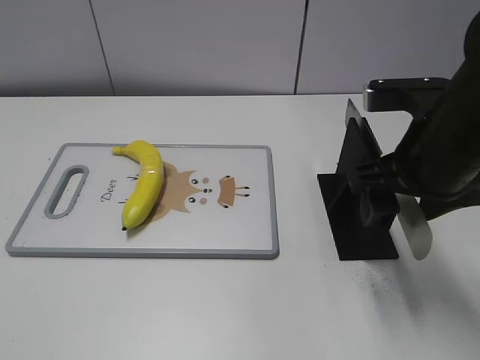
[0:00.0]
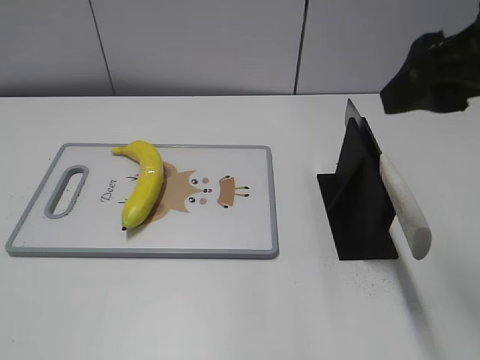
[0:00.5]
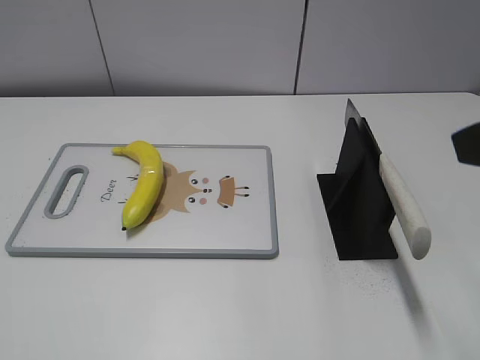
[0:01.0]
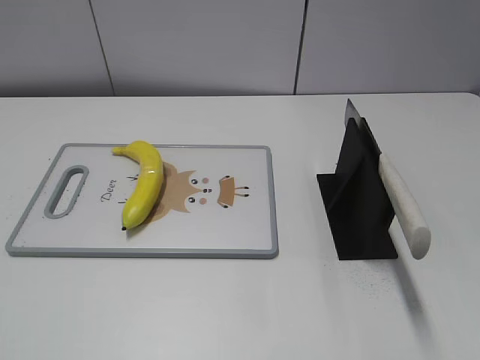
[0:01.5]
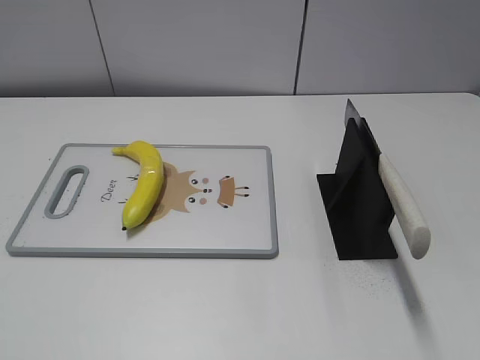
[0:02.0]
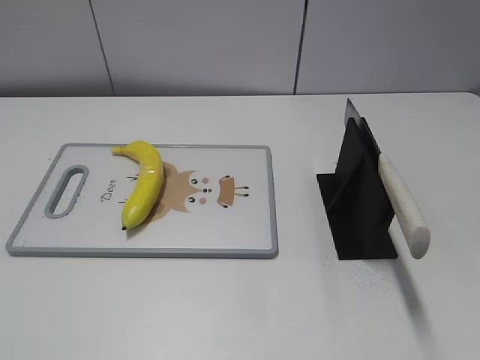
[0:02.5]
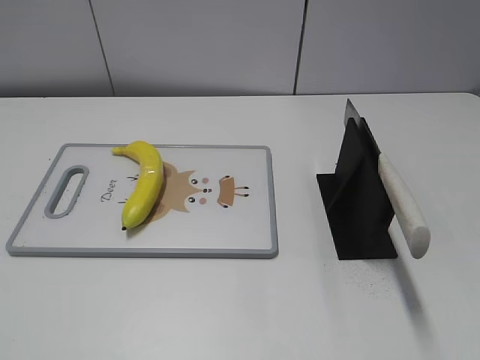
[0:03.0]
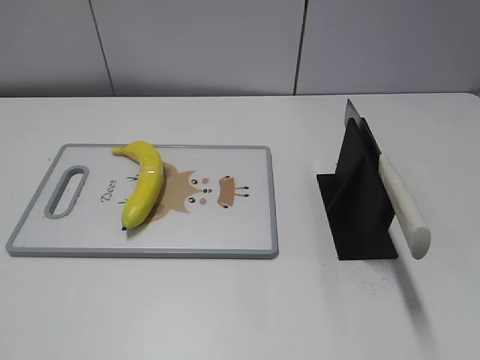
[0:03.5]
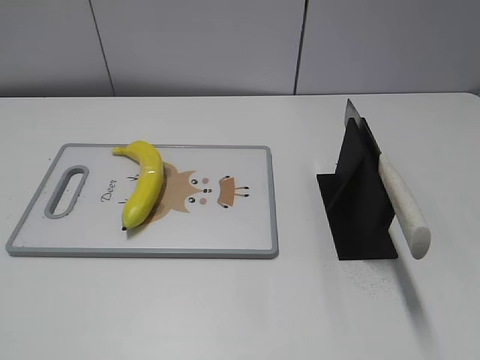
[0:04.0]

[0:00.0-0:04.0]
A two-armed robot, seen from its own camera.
Task of the whole recording: cut plastic banana.
Step, 0:00.0 to 0:04.0: Place the knife on the storage rack with your right hand.
0:00.0 to 0:02.0: The right gripper is displaced backward and to the right by about 25 cm.

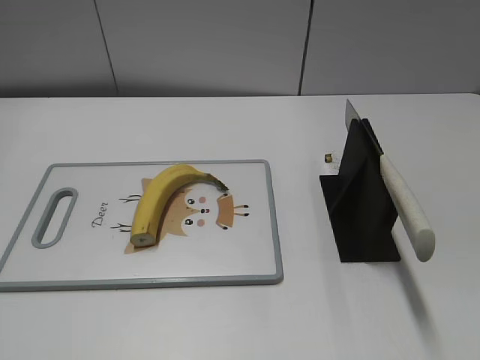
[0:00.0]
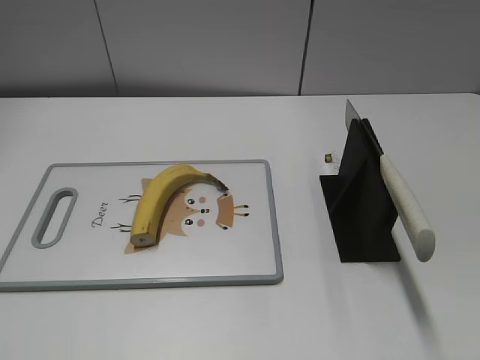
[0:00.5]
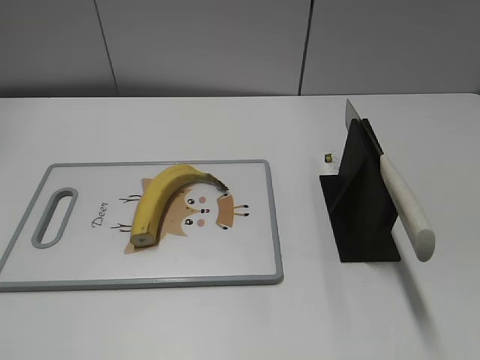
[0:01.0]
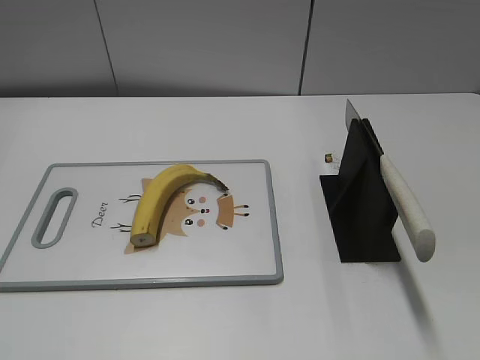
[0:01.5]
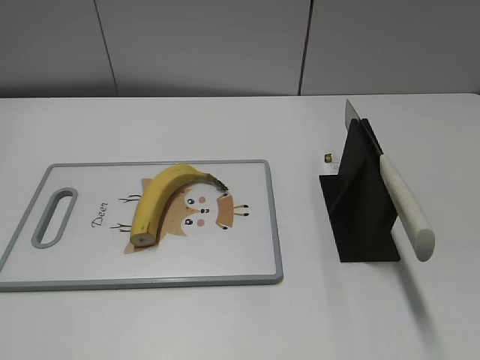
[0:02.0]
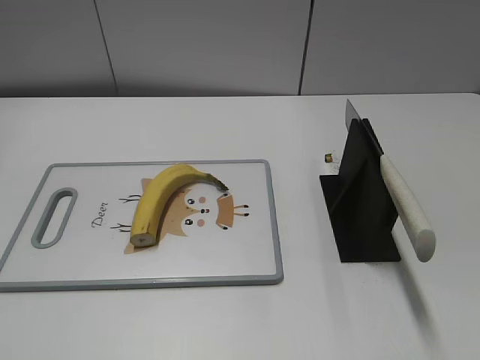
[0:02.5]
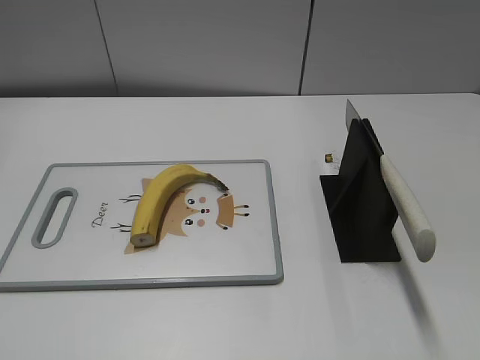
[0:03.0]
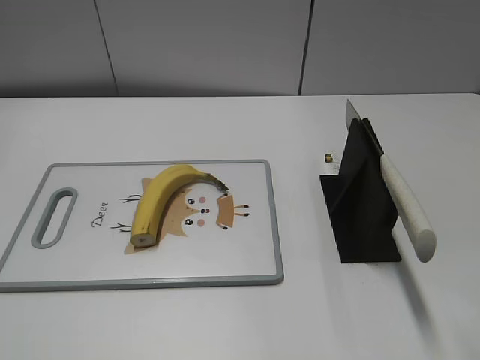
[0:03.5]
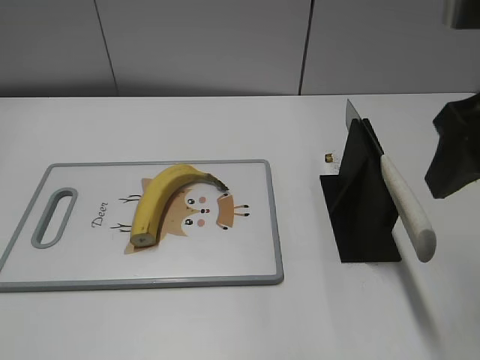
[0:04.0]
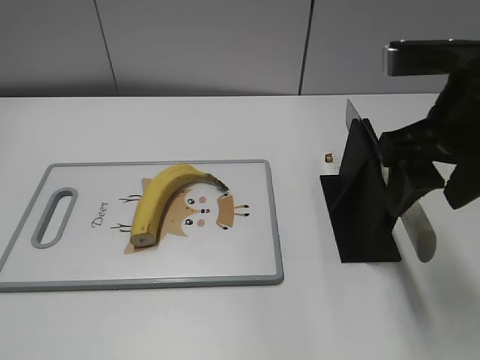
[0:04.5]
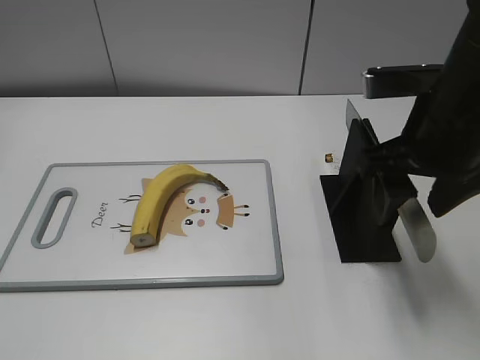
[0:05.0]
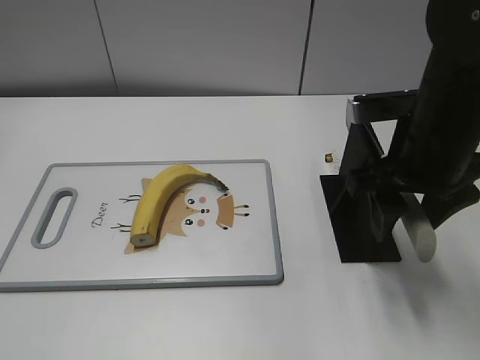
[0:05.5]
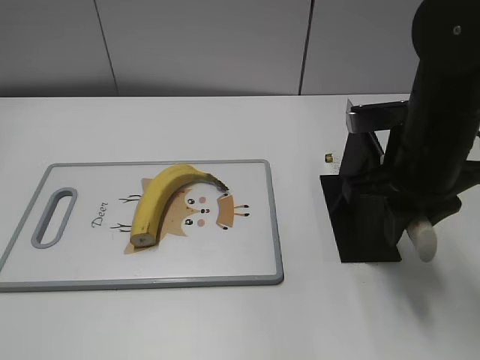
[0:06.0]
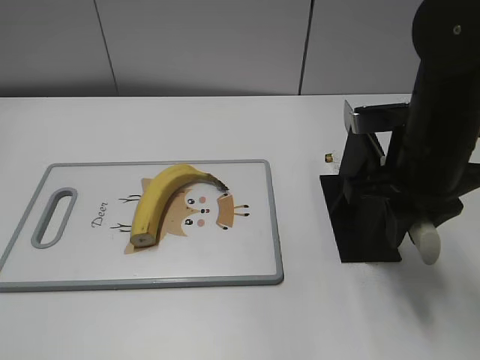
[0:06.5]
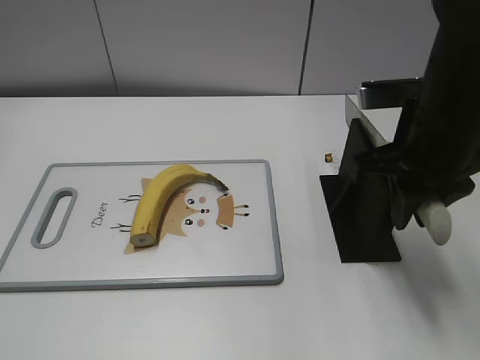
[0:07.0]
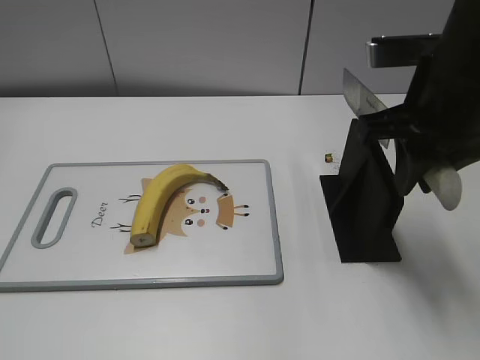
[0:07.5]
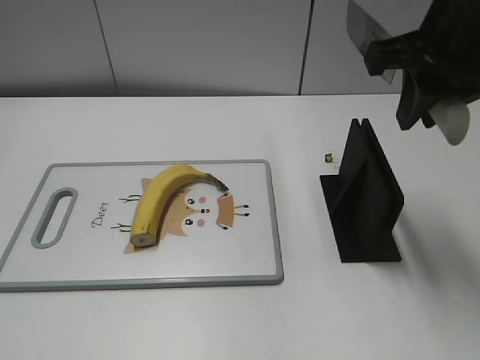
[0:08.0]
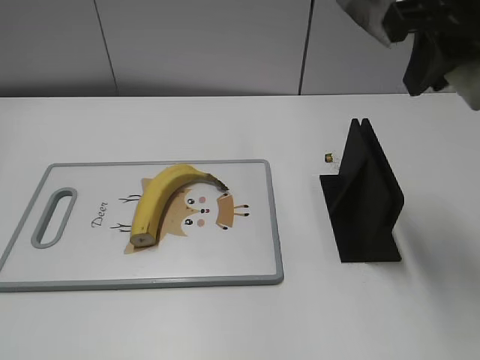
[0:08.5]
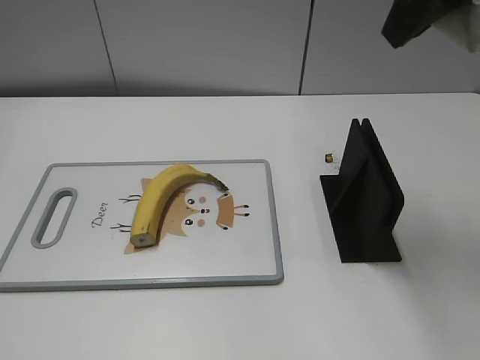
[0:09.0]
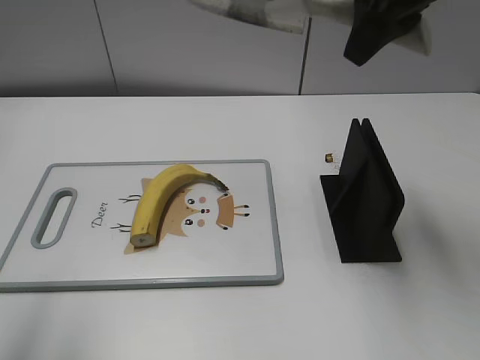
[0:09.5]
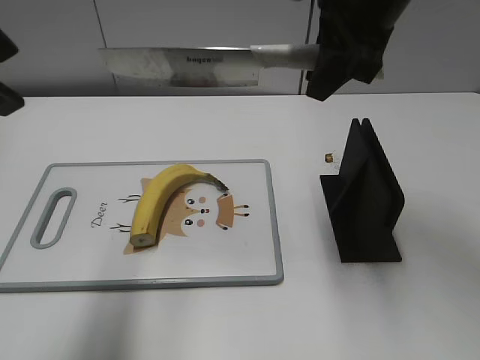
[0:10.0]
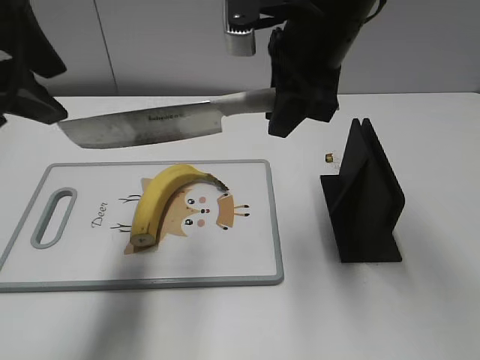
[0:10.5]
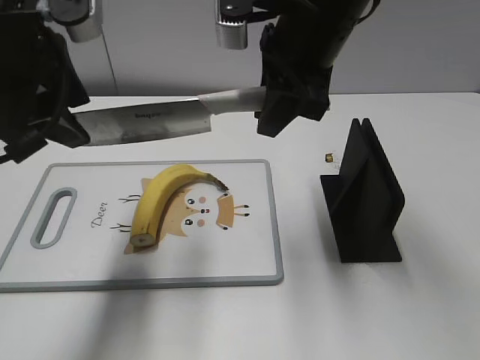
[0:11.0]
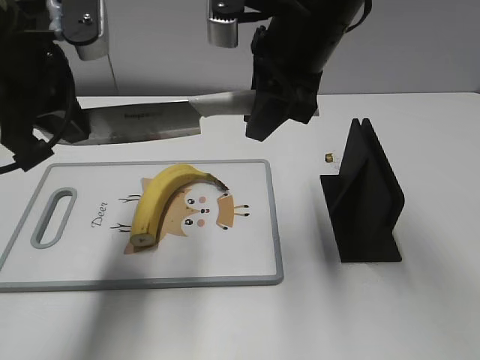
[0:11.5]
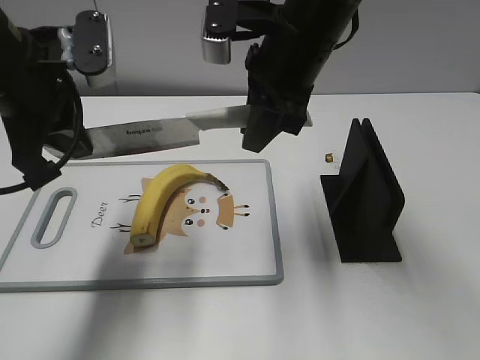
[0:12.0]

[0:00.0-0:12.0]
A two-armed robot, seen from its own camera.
Task of the whole recording: cut banana.
Step, 0:00.0 to 0:08.0: Grab the knife handle with your right hand.
0:02.0 to 0:04.0: The right gripper shifts some 25 cm forward and to the left.
0:04.0 to 0:06.0: The right gripper travels downward and forward by approximately 15 cm, and closes its fingers.
0:06.0 to 0:08.0: The right gripper moves upward, approximately 10 cm.
0:08.0 to 0:10.0: The left gripper shifts roughly 25 cm forward, upward and to the right. The right gripper travels forward and to the left by some 10 cm.
0:10.0 to 0:12.0: The left gripper goes approximately 15 cm downward and forward, and closes its fingers, while the right gripper heads to the left and downward, covering some 10 cm.

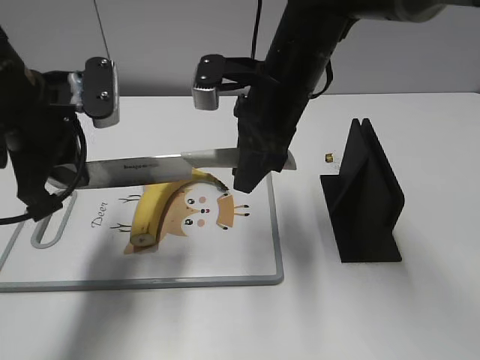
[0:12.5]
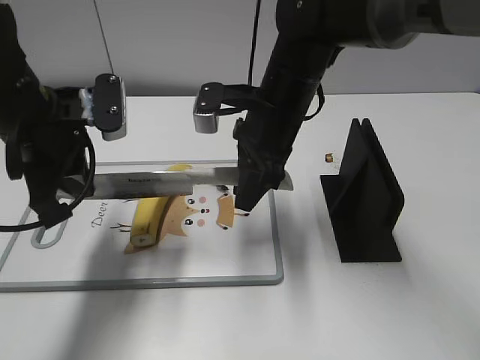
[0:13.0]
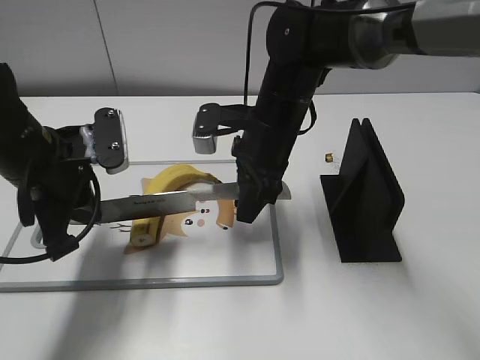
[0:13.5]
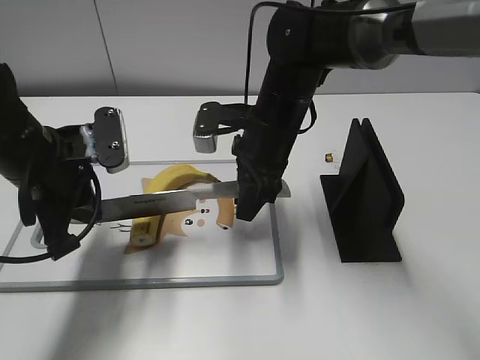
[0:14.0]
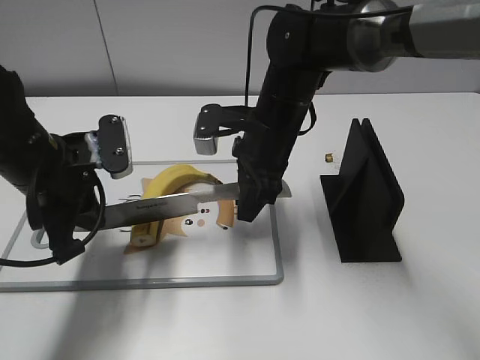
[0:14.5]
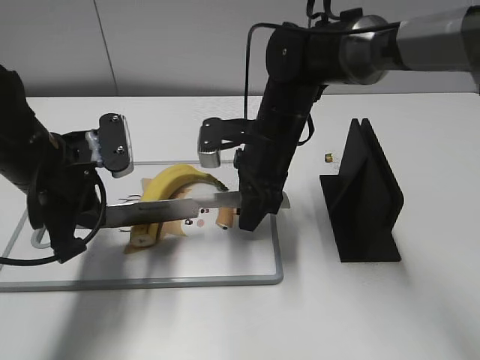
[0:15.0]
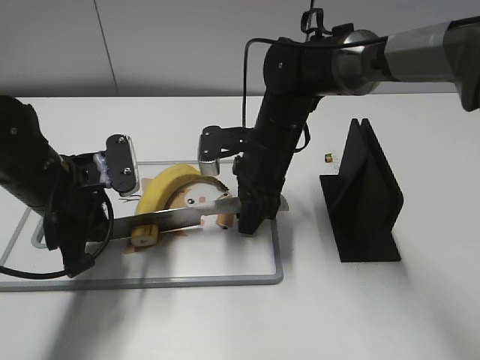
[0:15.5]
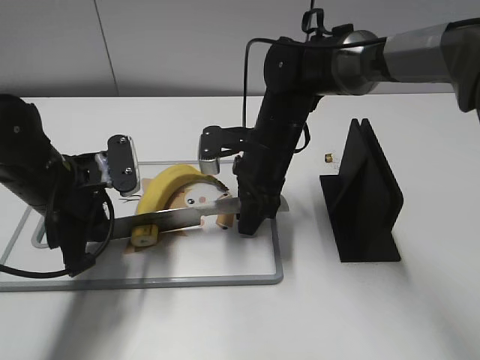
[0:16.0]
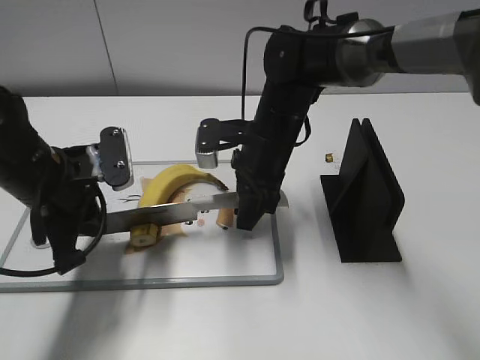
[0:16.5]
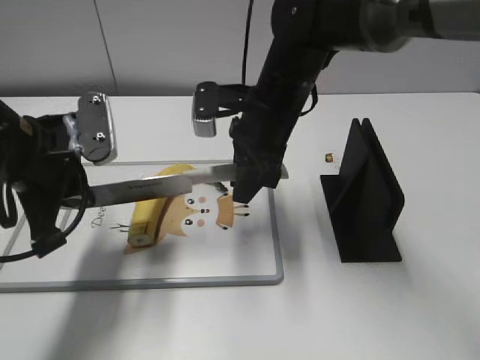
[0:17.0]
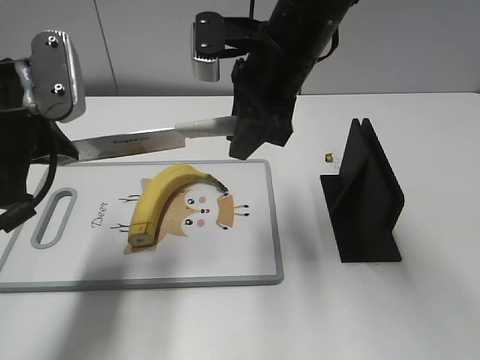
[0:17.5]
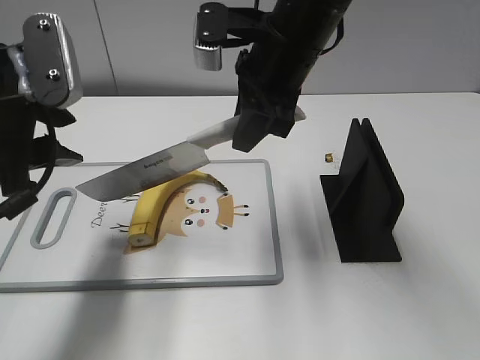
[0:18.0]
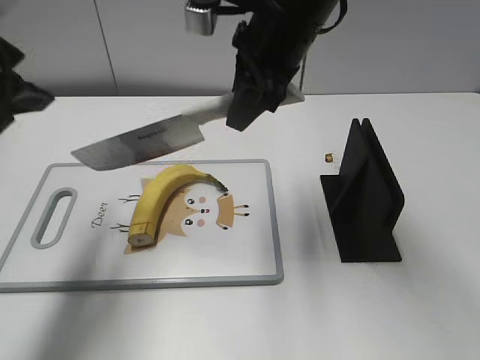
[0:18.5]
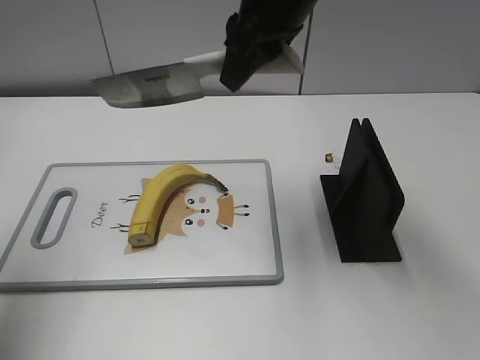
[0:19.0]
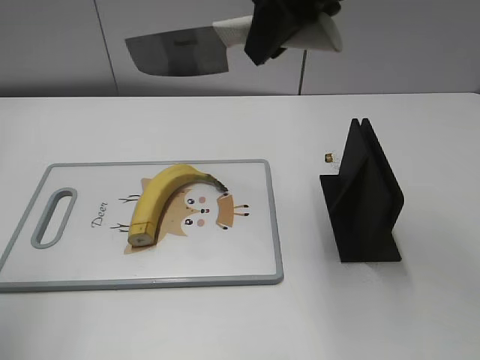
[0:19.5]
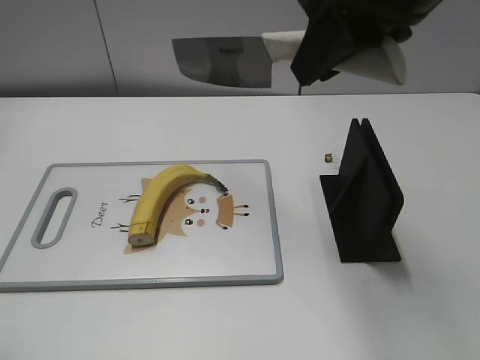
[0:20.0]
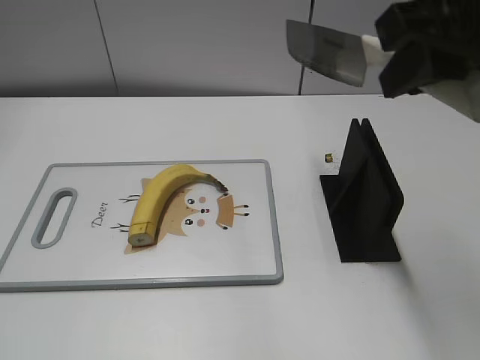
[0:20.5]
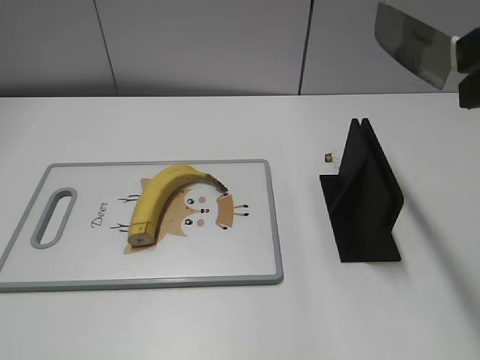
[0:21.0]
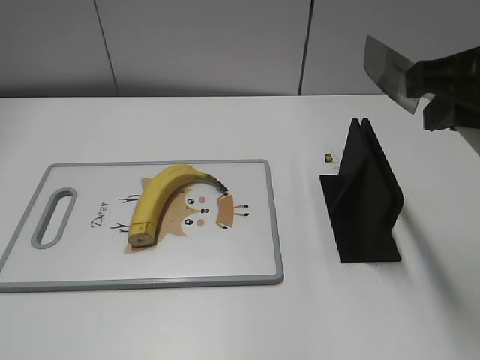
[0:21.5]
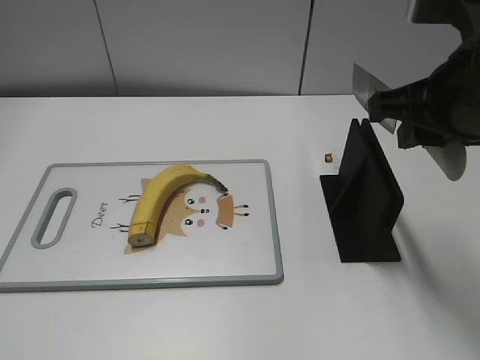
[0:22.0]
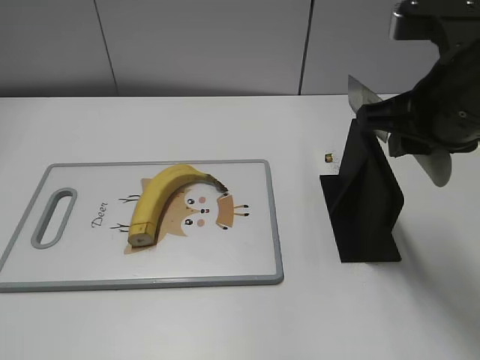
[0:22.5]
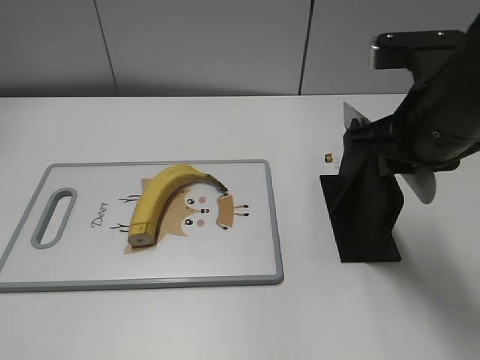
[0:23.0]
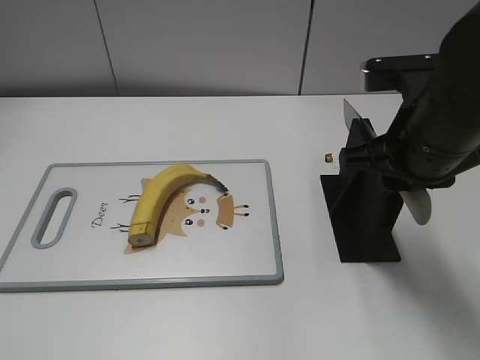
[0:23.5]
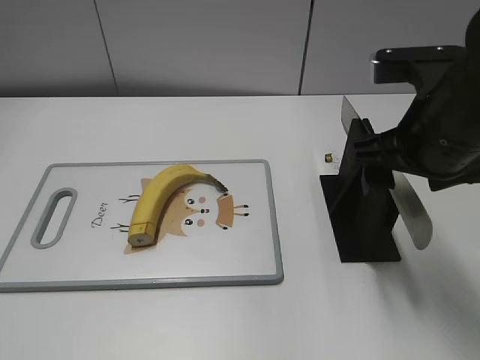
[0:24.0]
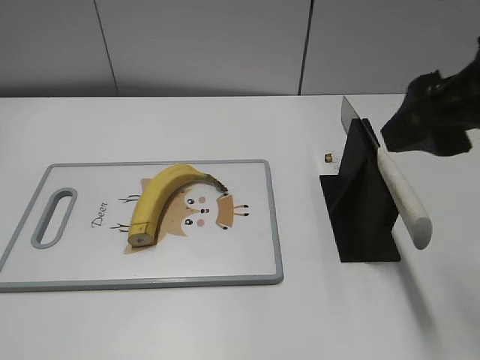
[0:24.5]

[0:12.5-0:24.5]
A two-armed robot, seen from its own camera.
Task of the whole recording: cut banana.
Step, 0:12.5 to 0:14.5: Lift the knife with your right hand.
Step, 0:15.0 to 0:20.0: Cut the banana with your right hand.
Step, 0:20.5 to 0:22.0: Lift the knife with your right hand.
0:12.5 to 0:14.5: Both grippers travel together downward, approximately 5 cm.
0:14.5 to 0:16.5: There are only small adjustments of the grippers.
0:16.5 to 0:18.5: The two grippers go about 15 cm upward. The left gripper opens its fingers.
0:18.5 to 0:20.5: The right gripper travels backward, to the right and upward by about 20 cm, while the left gripper travels backward by approximately 25 cm.
0:20.5 to 0:22.5: The right gripper travels downward by about 10 cm.
0:22.5 to 0:24.5: The right gripper goes approximately 10 cm upward and backward, and opens up.
